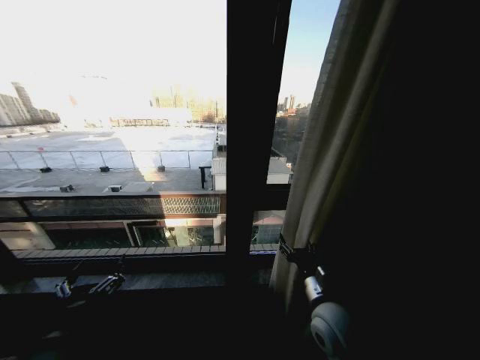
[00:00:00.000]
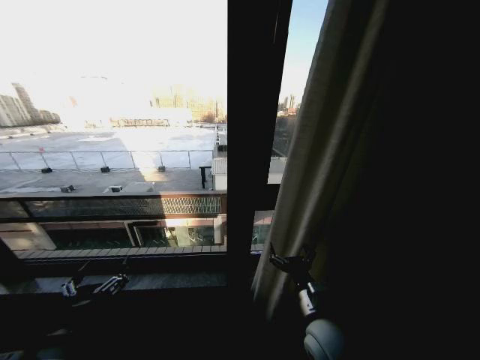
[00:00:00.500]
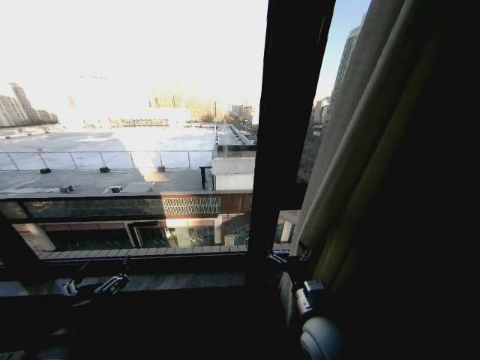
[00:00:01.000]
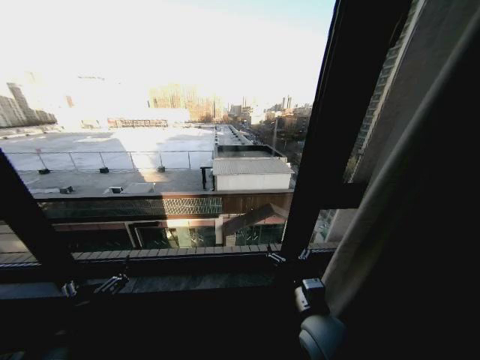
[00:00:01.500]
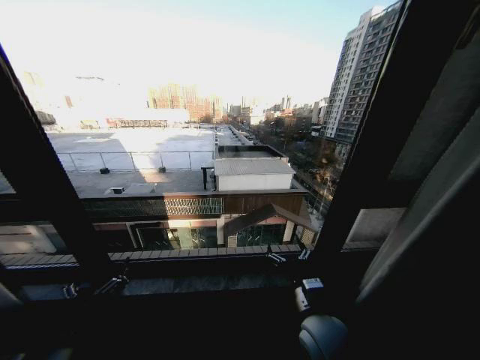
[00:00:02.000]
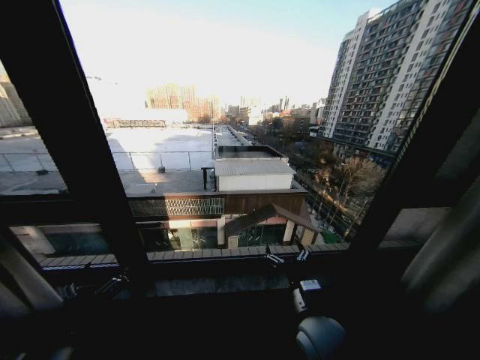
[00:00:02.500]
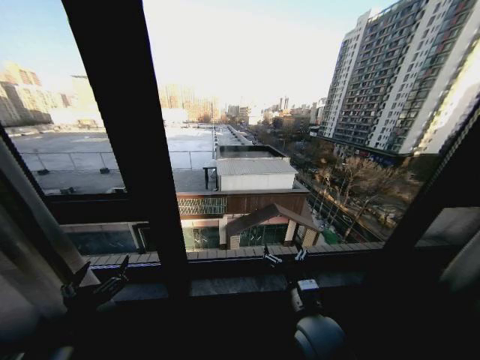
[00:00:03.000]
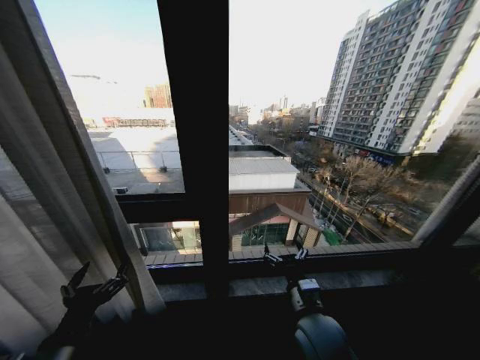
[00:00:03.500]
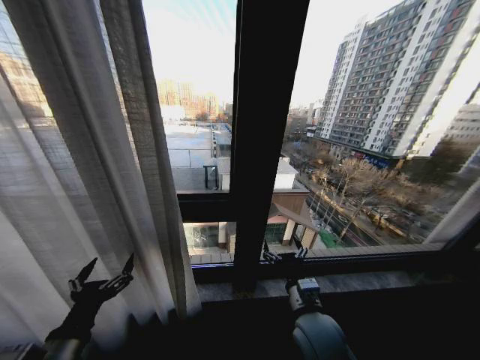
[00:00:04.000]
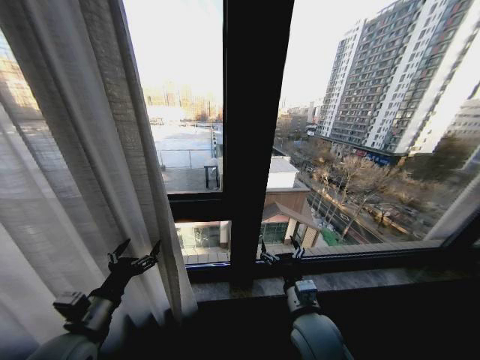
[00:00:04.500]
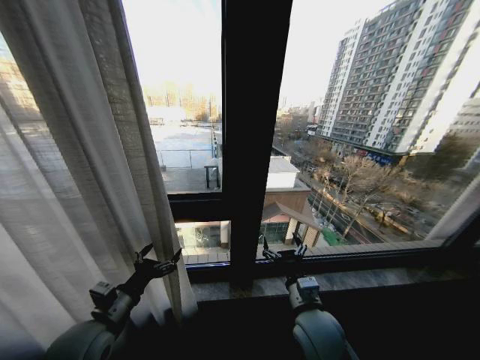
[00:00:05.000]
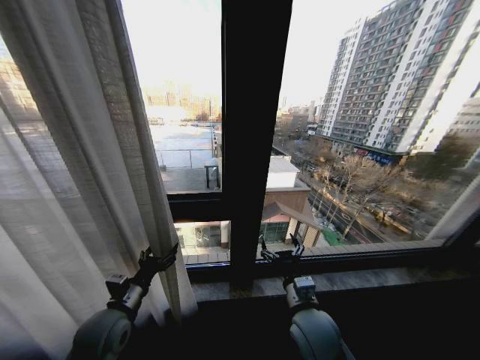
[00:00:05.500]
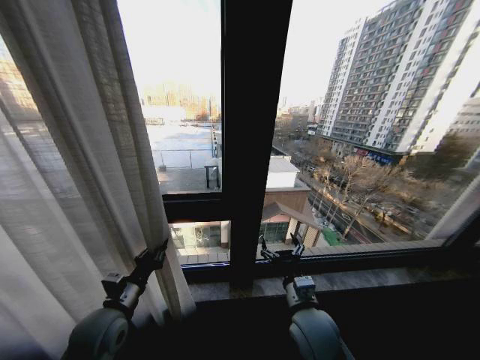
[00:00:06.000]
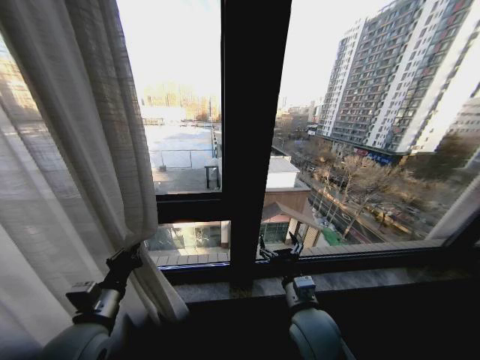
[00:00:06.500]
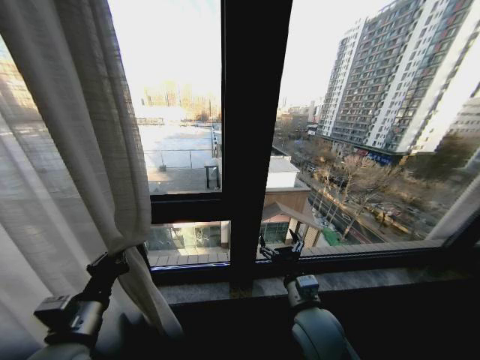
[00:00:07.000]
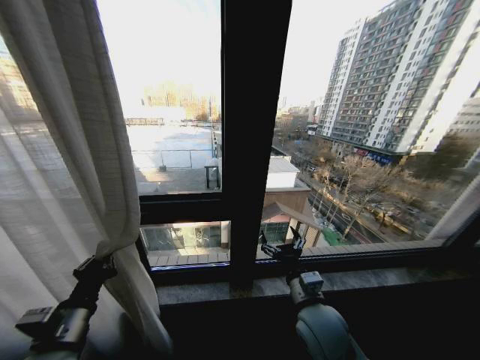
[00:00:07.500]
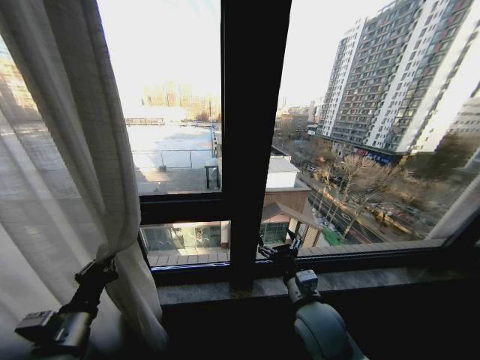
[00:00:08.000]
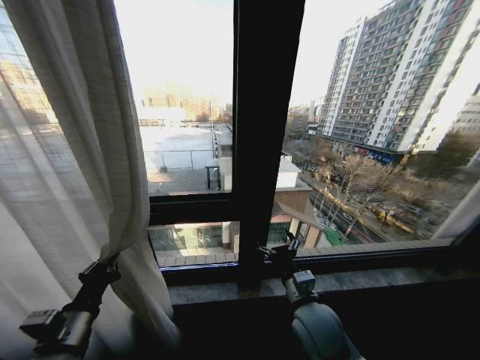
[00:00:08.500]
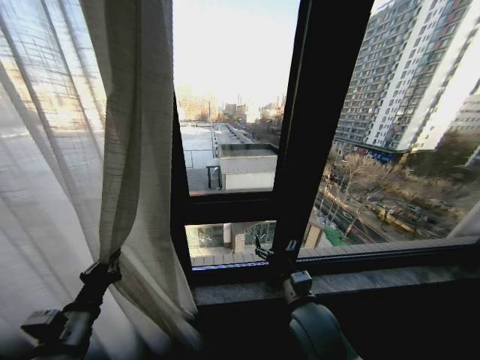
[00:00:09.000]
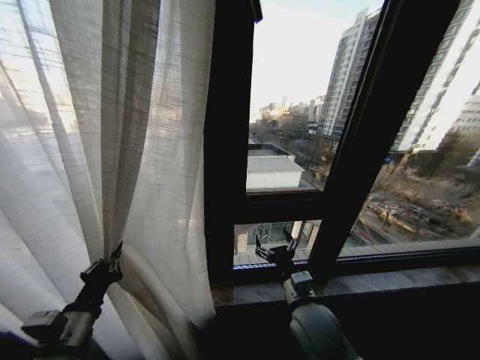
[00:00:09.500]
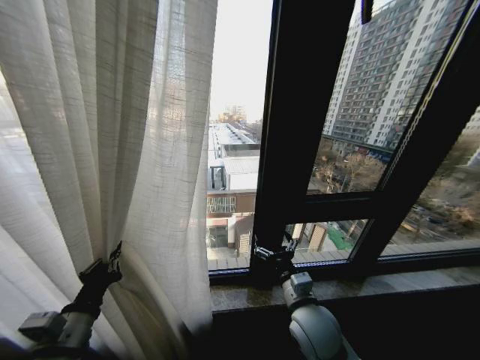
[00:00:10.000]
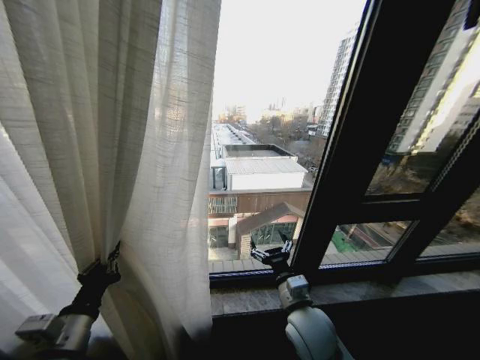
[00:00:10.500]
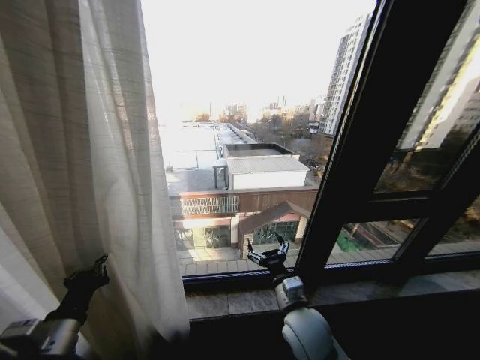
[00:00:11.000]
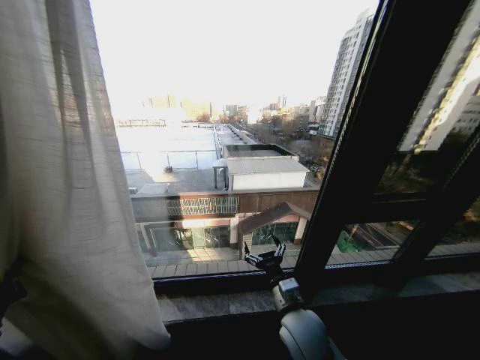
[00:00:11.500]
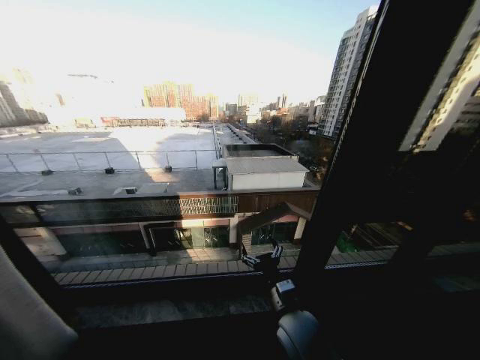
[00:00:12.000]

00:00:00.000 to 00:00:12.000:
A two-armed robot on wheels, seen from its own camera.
Task of the whole recording: Open the curtains by pulling them apart, changing their state from closed to fully open.
00:00:04.000 to 00:00:06.000: The left gripper moves forward, roughly 15 cm, and closes.
00:00:06.000 to 00:00:08.000: The left gripper goes some 10 cm backward.
00:00:10.000 to 00:00:12.000: The left gripper travels to the left by roughly 25 cm.

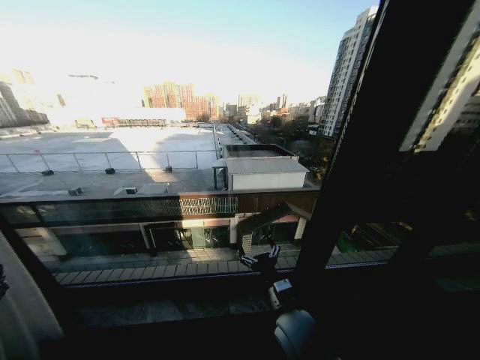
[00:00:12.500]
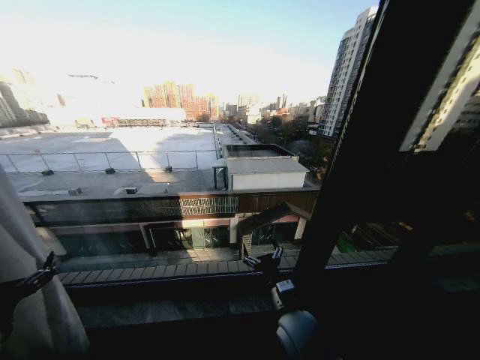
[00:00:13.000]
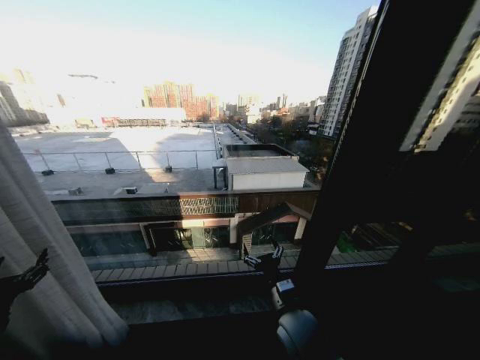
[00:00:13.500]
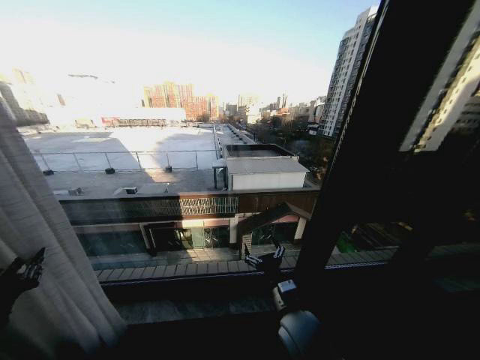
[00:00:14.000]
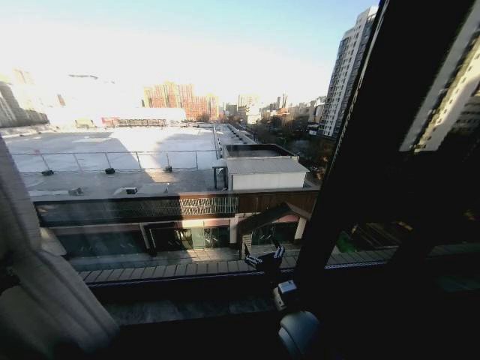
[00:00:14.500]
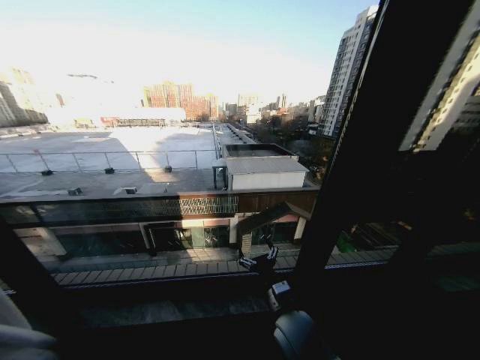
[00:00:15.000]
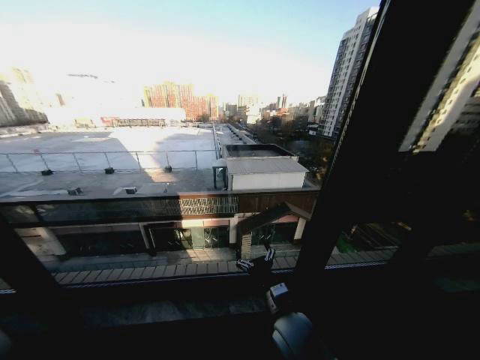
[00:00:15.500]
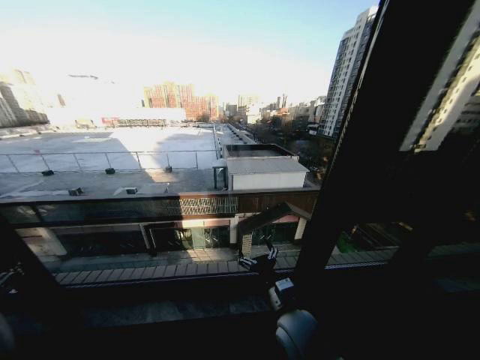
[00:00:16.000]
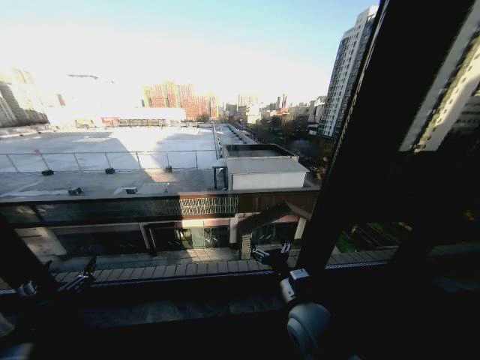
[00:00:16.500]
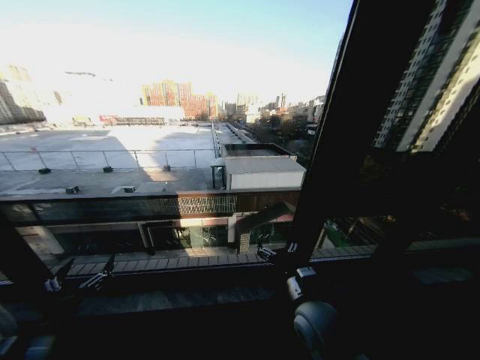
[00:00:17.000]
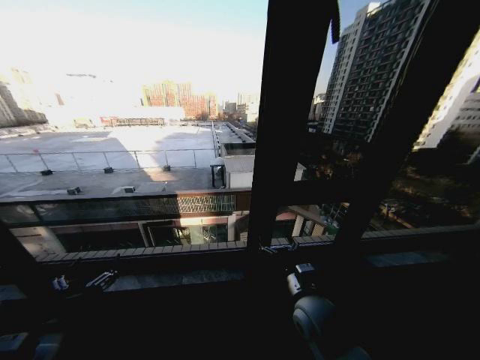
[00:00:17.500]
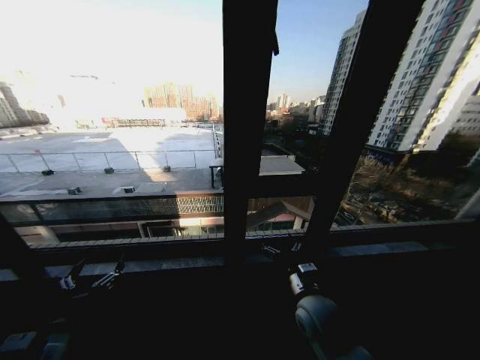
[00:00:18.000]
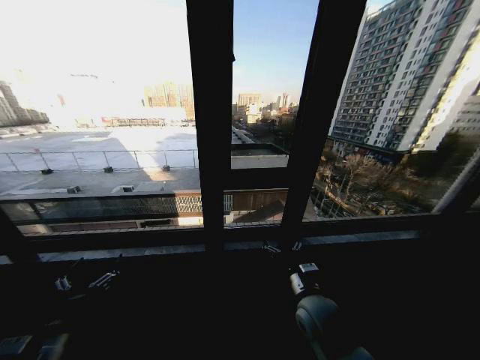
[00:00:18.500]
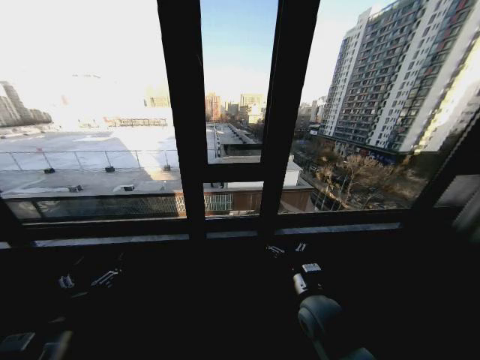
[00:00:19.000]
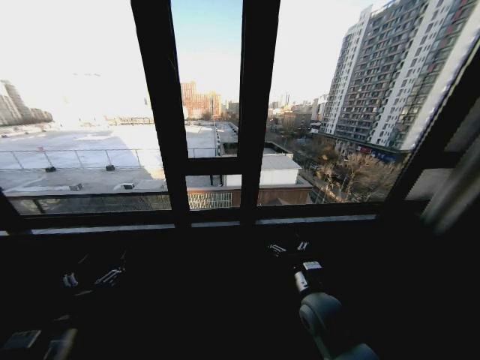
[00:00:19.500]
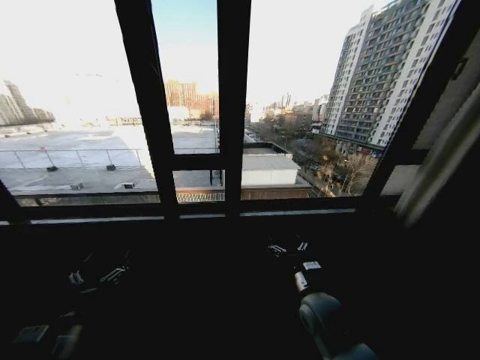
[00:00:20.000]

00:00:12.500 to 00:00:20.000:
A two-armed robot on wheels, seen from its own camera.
Task of the whole recording: Open the curtains by pulling them apart, changing their state from closed to fully open.
00:00:12.500 to 00:00:14.500: The left gripper goes some 5 cm forward, and closes.
00:00:14.500 to 00:00:16.500: The left gripper heads to the right, covering some 10 cm, and opens up.
